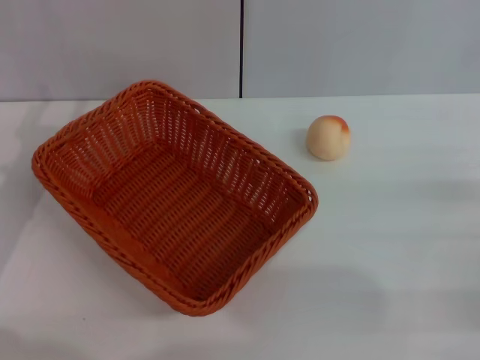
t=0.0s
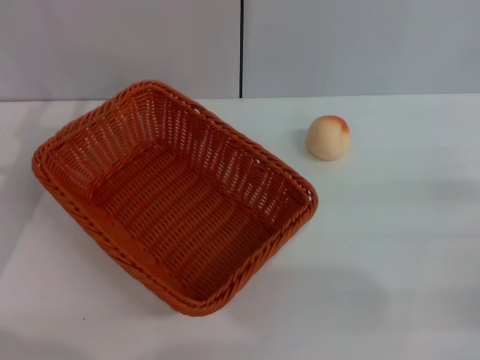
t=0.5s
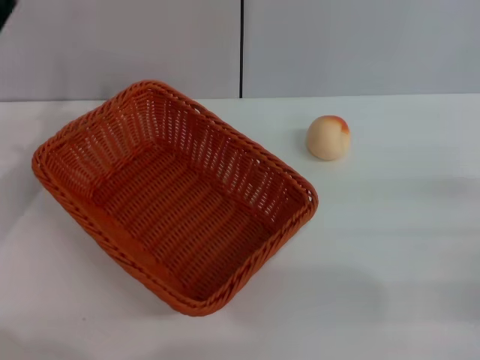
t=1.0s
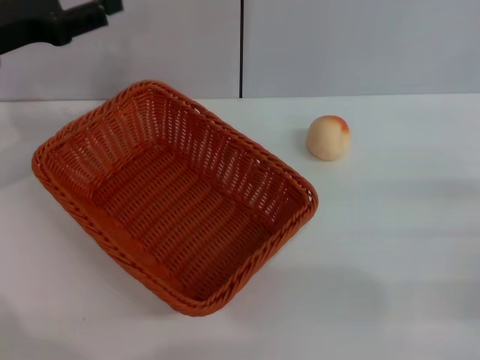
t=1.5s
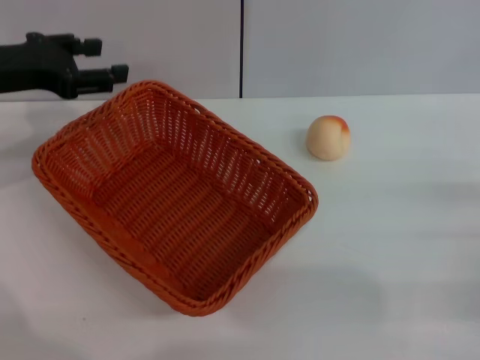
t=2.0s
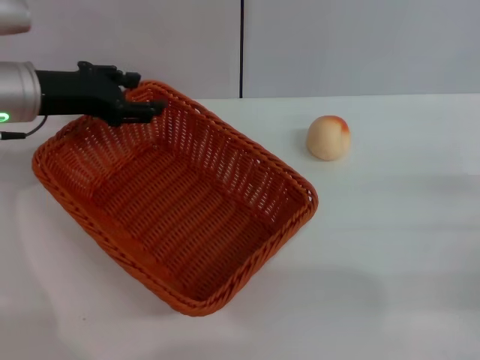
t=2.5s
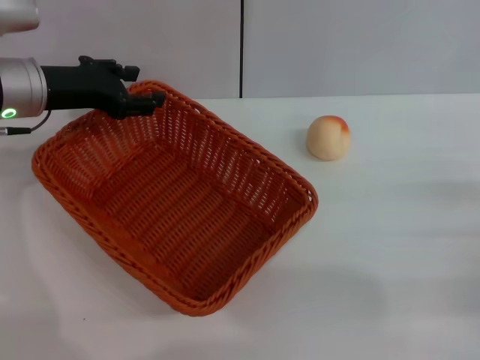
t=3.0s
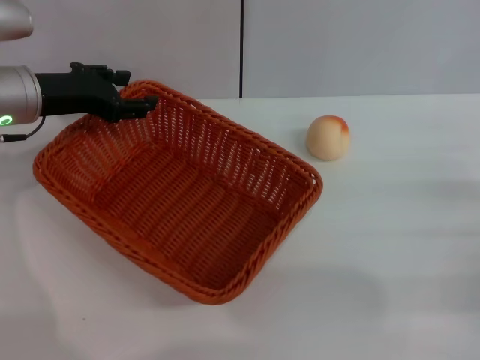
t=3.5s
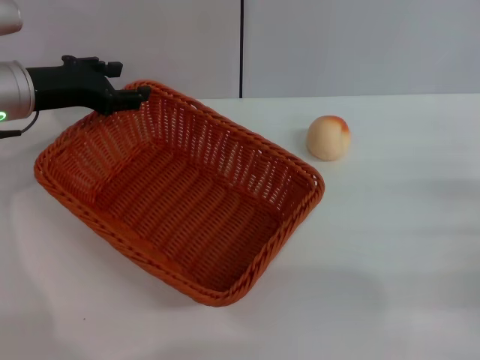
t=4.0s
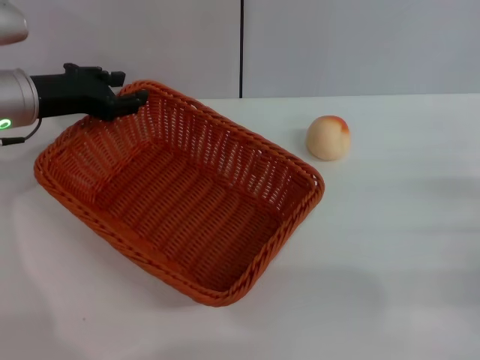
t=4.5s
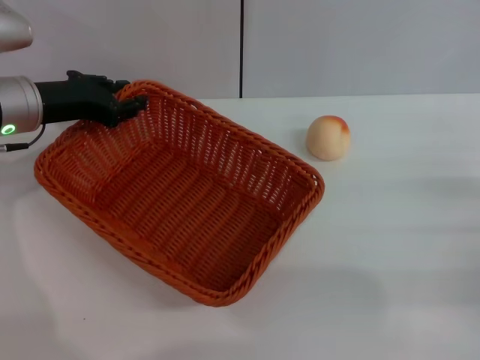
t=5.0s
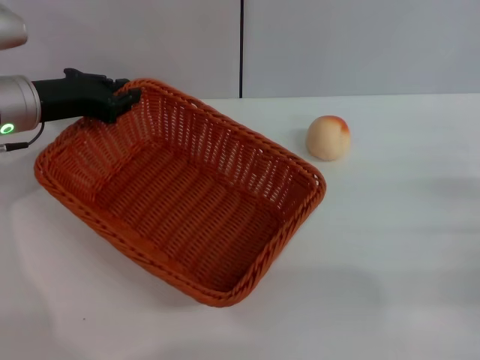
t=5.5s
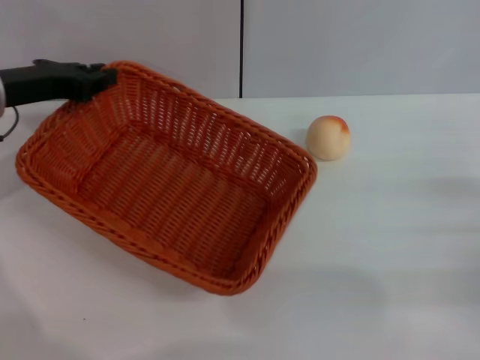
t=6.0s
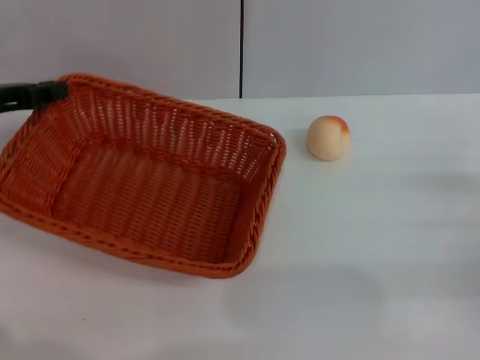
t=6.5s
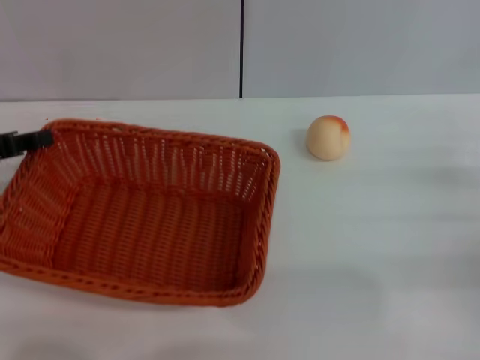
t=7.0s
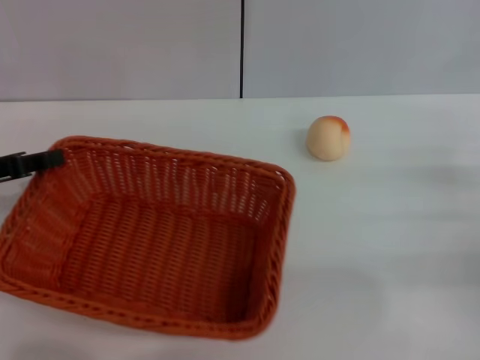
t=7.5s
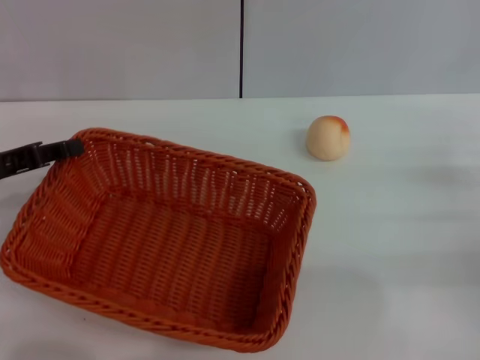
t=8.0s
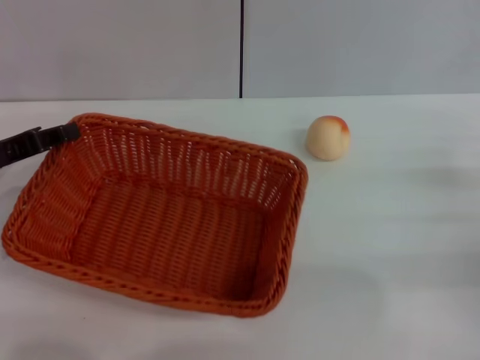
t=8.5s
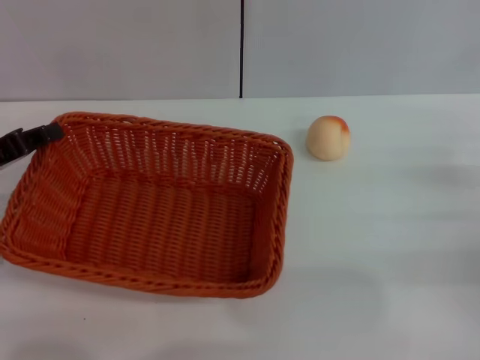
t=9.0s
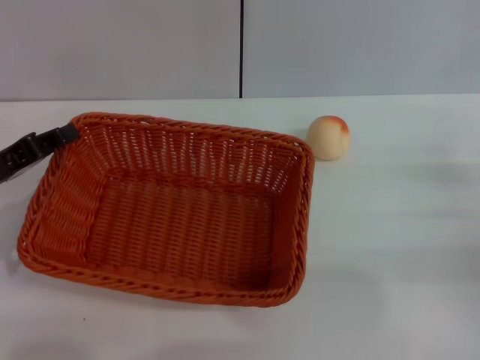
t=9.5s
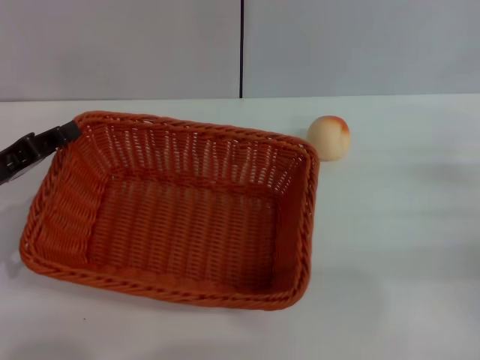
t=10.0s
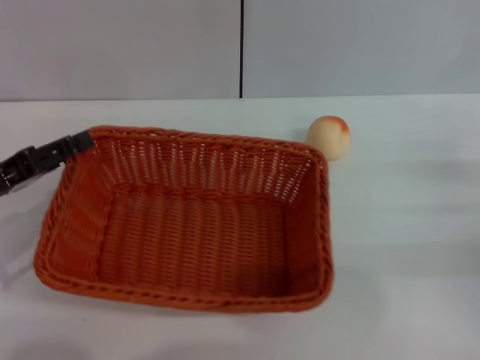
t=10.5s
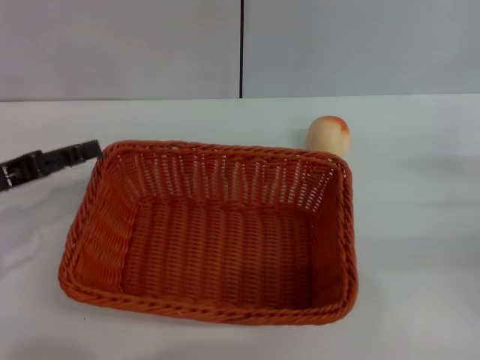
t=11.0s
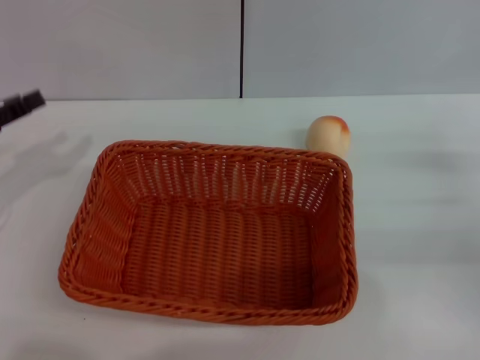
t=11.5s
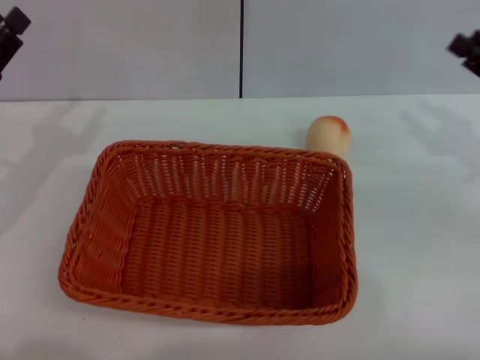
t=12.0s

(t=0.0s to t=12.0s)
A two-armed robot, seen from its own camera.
Step, t=0.0s - t=11.0s: Move the basket to the center of view with the left gripper.
t=0.0s - t=2.0s: The left gripper shifts some 10 cm forward and upward.
t=2.0s - t=4.0s: The left gripper ends up about 5 cm from where it was.
t=4.0s - t=6.0s: The left gripper closes up.
t=6.0s - t=8.0s: The left gripper travels backward by approximately 10 cm.
t=8.0s - t=10.0s: The grippers make only small movements.
t=10.0s - t=12.0s: The left gripper opens up. Meanwhile the right gripper shifts some 10 cm upward and forward.

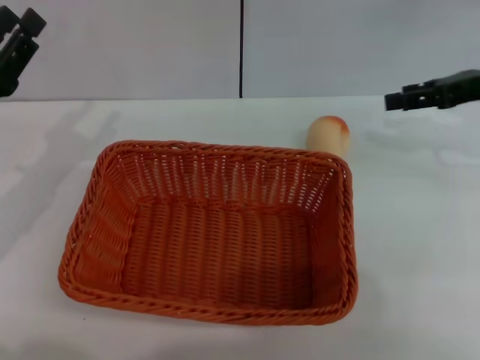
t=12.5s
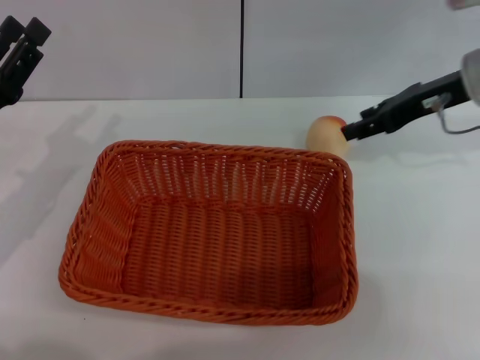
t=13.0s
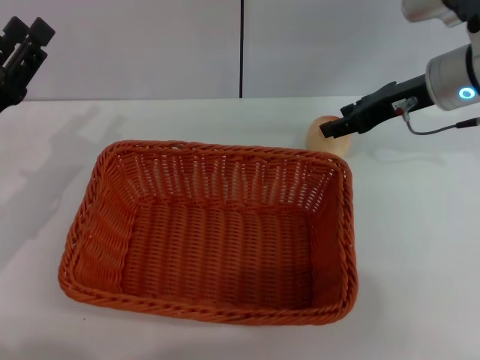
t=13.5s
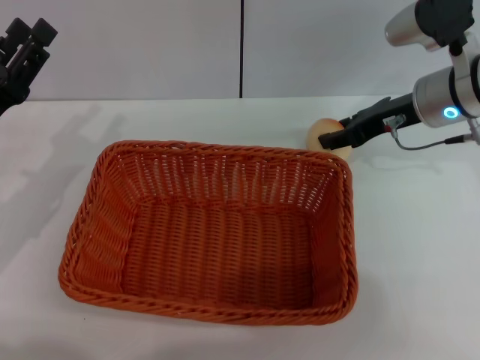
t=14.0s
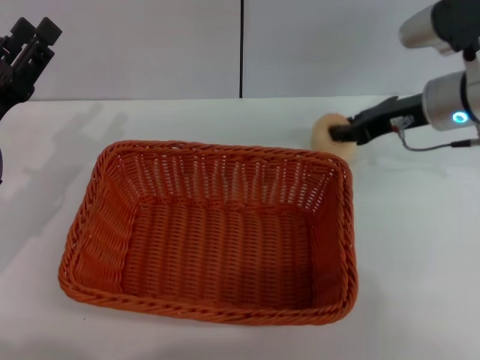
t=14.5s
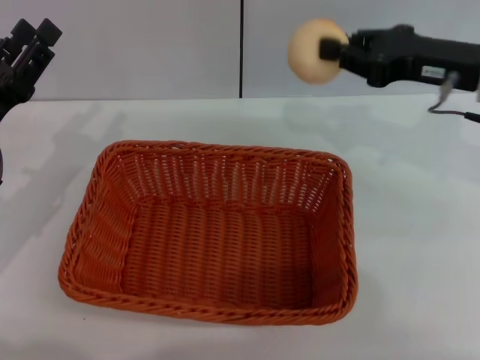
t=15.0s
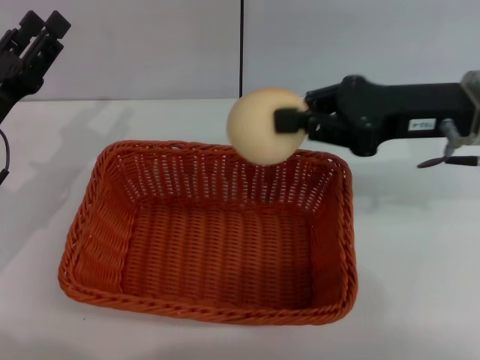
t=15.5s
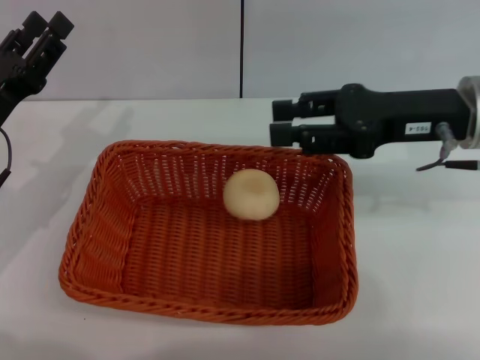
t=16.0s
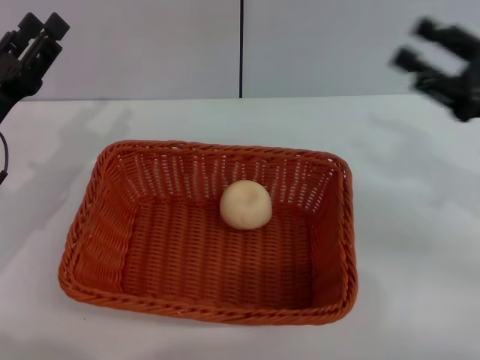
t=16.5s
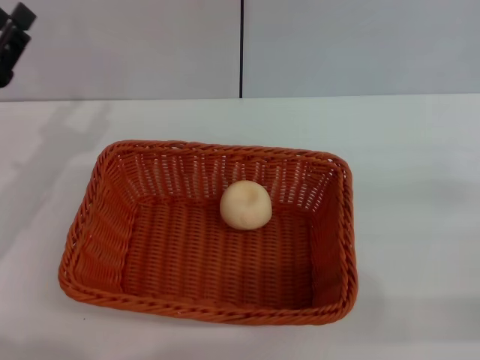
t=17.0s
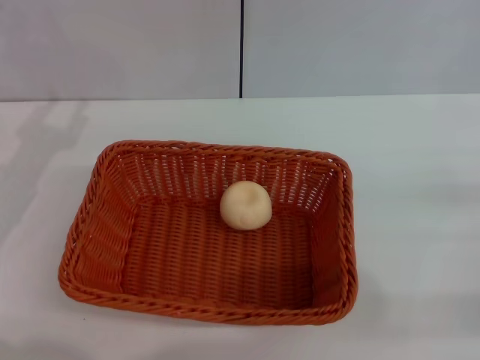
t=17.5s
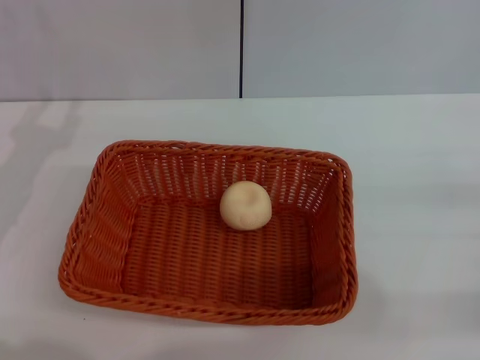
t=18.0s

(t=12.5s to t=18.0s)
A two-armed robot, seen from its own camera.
Step, t=12.5s - t=14.5s: Pick up the egg yolk pastry with the right gripper.
Step, t=15.0s - t=16.0s: Place the egg yolk pastry into the basket with the right gripper.
t=12.5s - t=14.5s: The right gripper travels to the left by some 10 cm, and closes its fingers.
t=14.5s - t=16.0s: The right gripper moves backward, roughly 5 cm.
t=16.0s - t=18.0s: The right gripper is displaced to the right, backward and downward by roughly 25 cm, and opens up.
